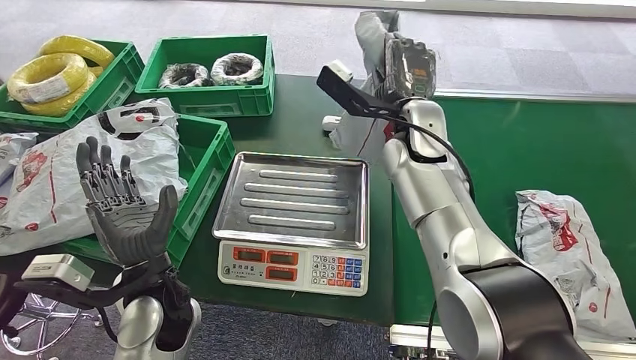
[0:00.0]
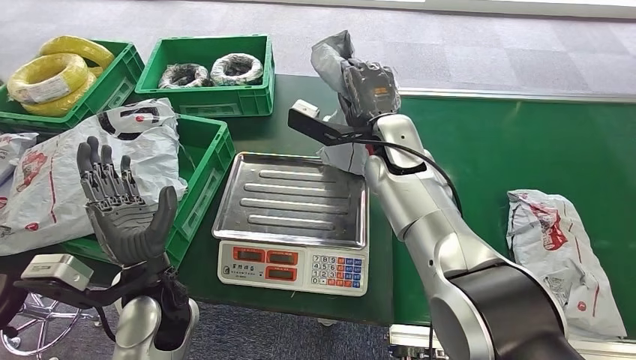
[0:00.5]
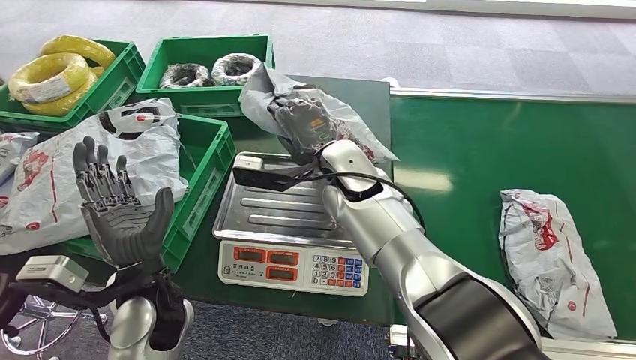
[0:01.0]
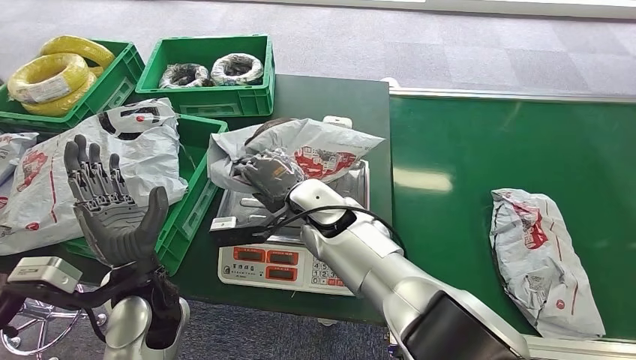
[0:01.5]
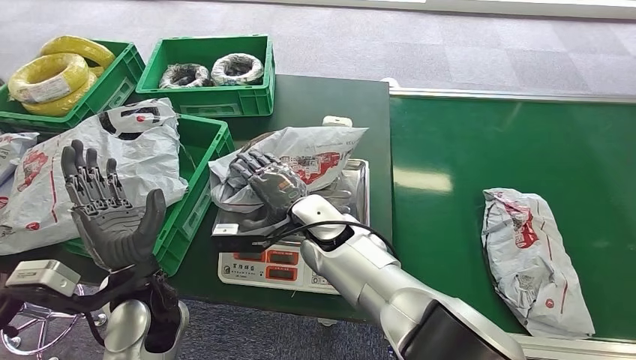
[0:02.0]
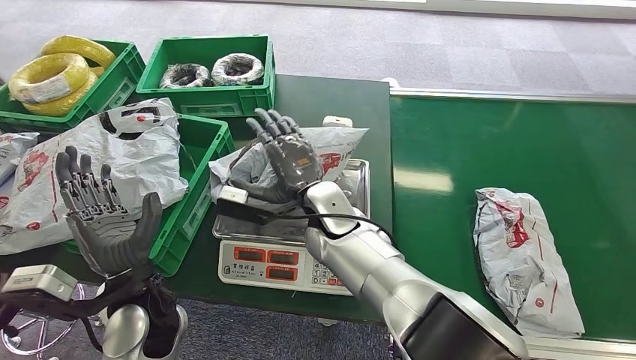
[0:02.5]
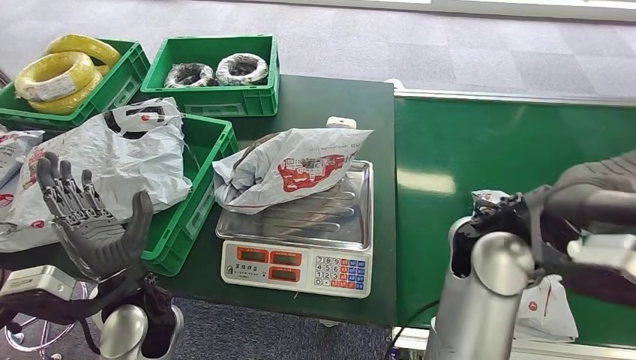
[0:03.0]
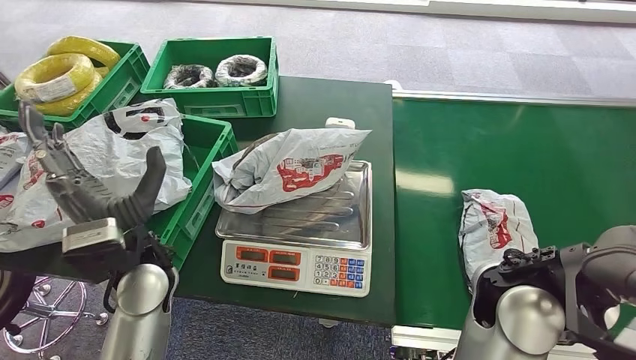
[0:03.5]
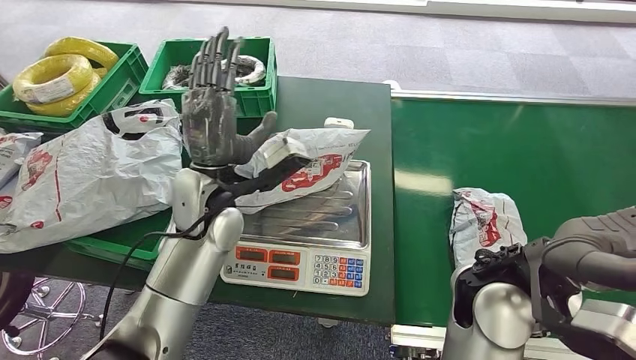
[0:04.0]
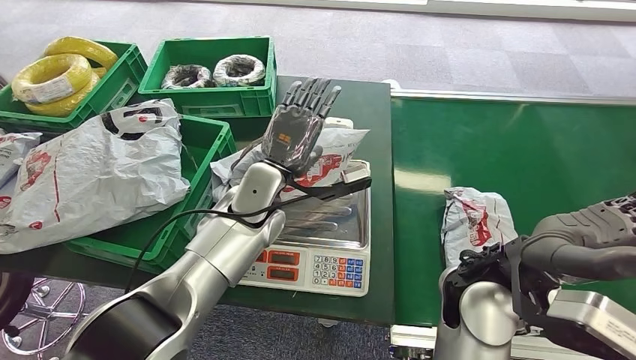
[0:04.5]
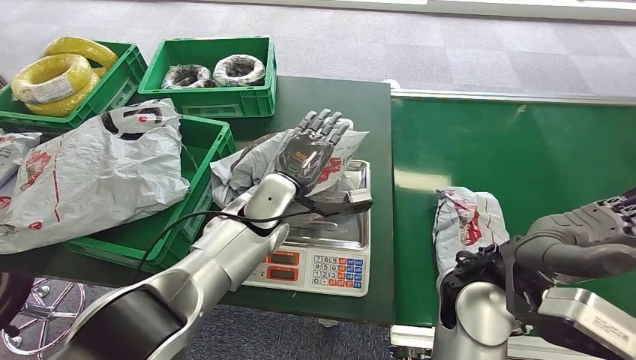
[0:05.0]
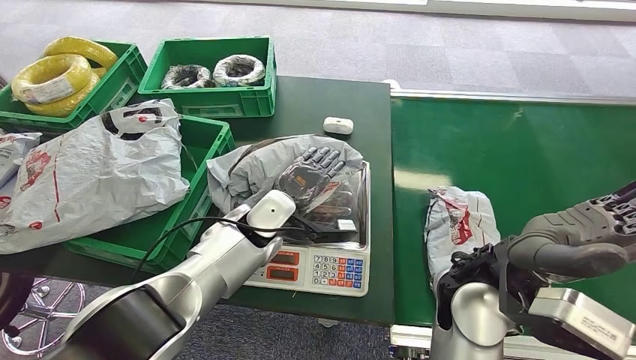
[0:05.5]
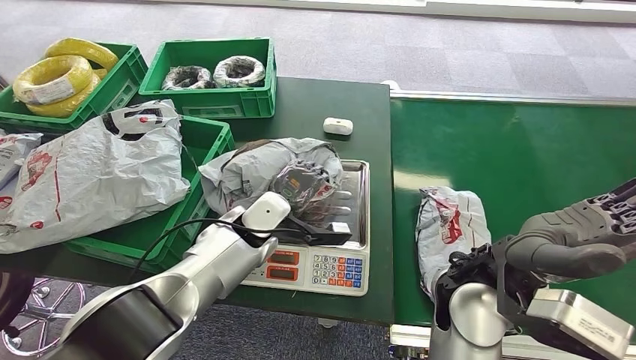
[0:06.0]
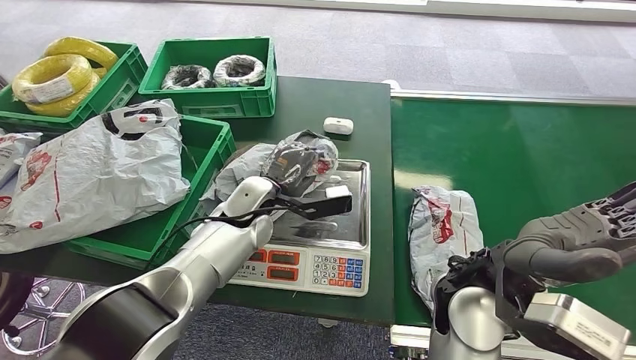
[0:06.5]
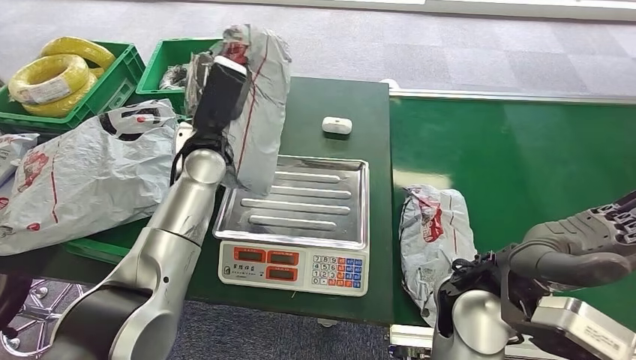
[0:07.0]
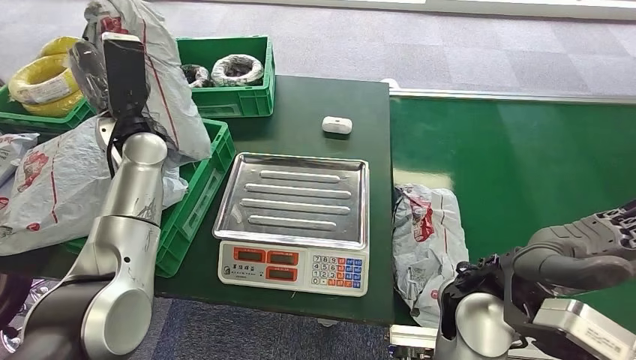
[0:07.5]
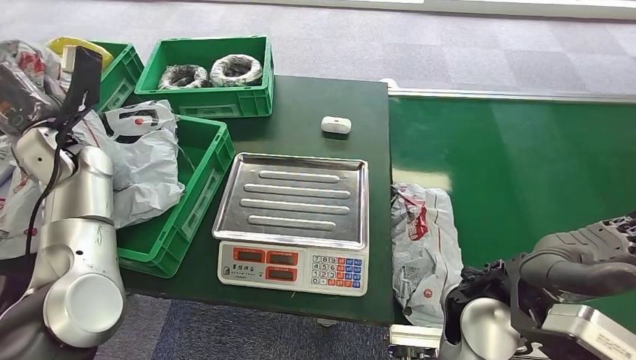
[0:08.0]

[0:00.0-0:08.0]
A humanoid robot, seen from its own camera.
Step, 0:00.0 to 0:03.0: Place the package onto the inbound machine.
Step, 0:03.5 to 0:07.0: Pick up the package from the inbound machine.
Step, 0:07.5 to 0:08.0: Place the package into the parcel locker.
